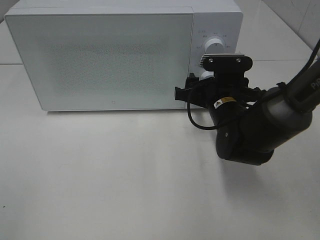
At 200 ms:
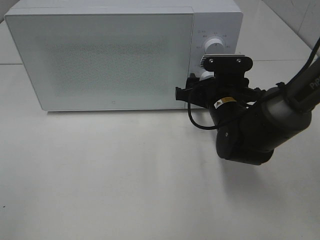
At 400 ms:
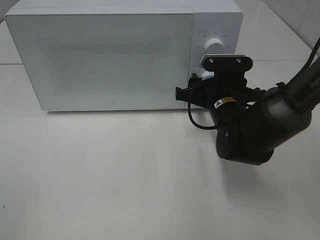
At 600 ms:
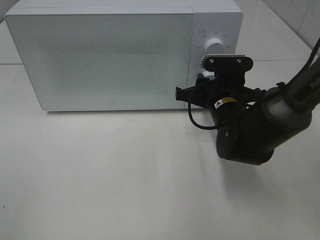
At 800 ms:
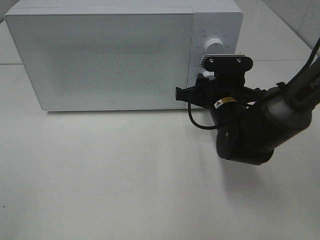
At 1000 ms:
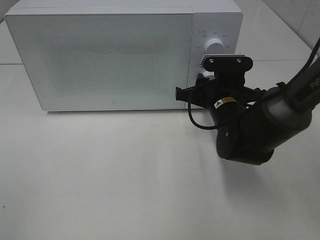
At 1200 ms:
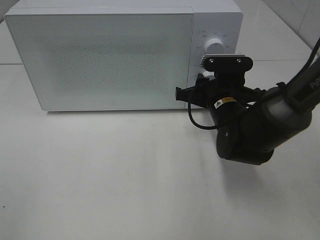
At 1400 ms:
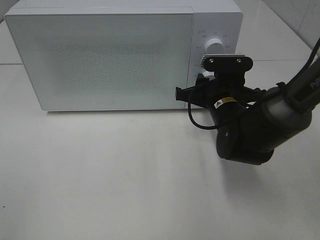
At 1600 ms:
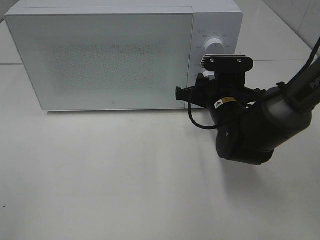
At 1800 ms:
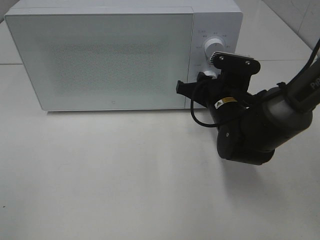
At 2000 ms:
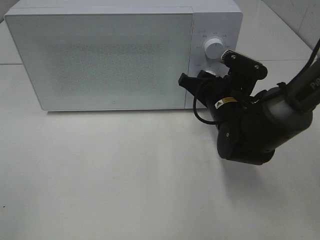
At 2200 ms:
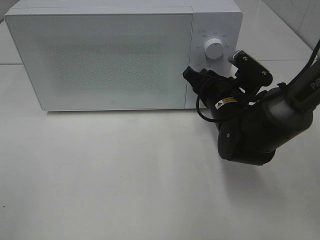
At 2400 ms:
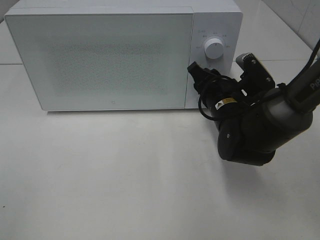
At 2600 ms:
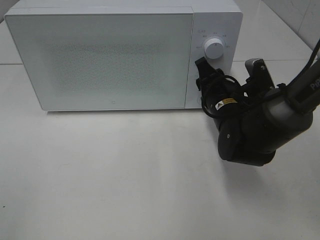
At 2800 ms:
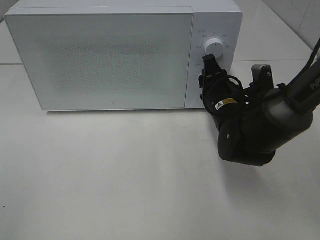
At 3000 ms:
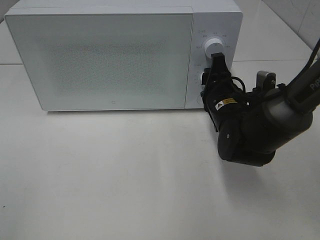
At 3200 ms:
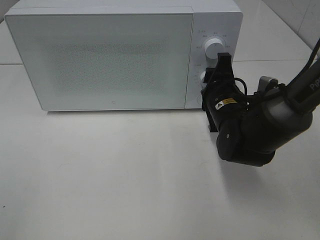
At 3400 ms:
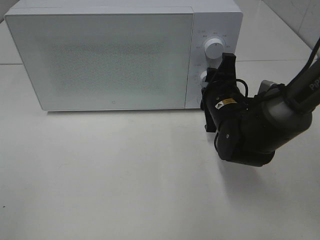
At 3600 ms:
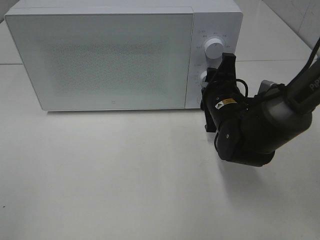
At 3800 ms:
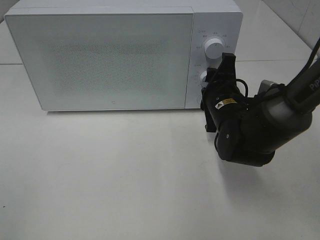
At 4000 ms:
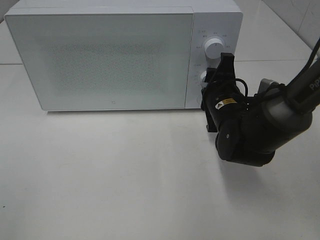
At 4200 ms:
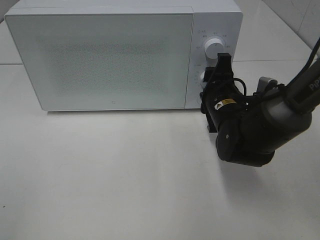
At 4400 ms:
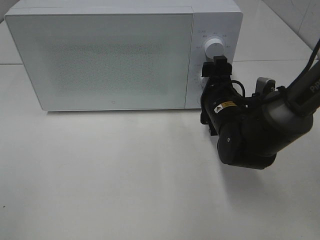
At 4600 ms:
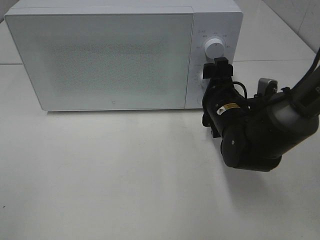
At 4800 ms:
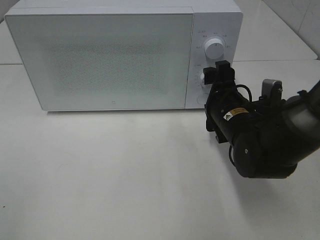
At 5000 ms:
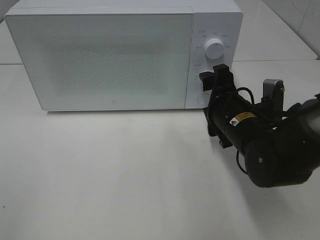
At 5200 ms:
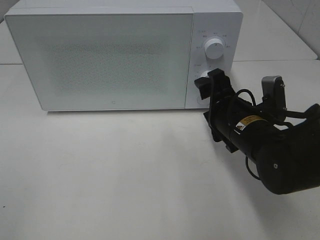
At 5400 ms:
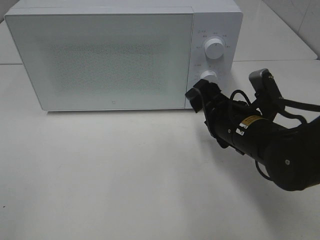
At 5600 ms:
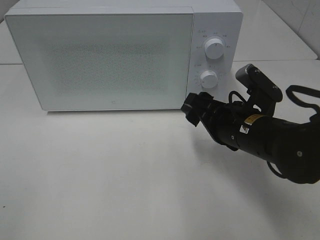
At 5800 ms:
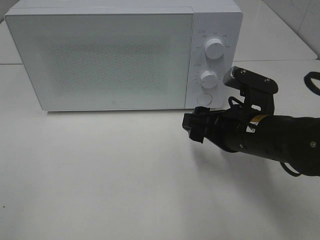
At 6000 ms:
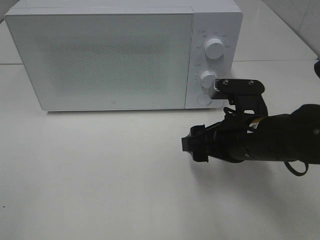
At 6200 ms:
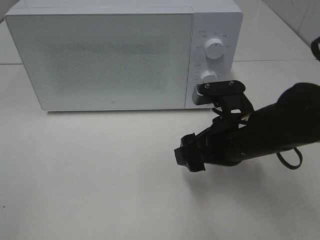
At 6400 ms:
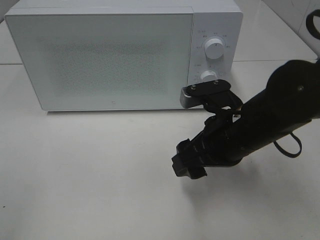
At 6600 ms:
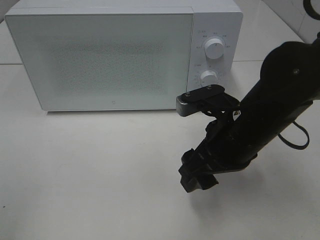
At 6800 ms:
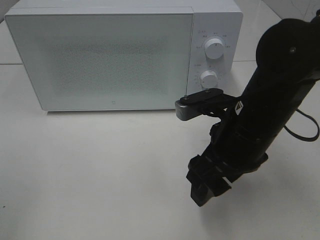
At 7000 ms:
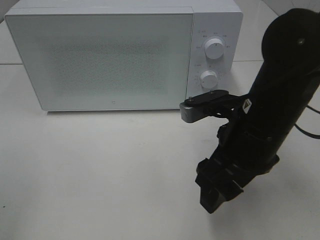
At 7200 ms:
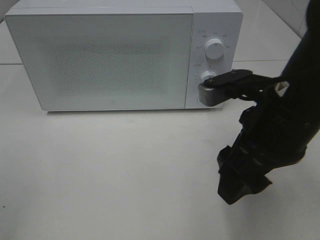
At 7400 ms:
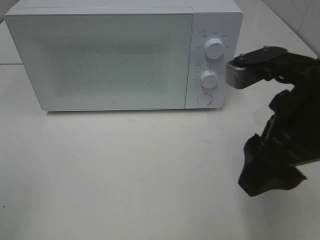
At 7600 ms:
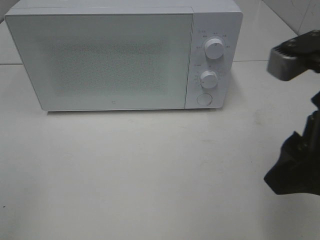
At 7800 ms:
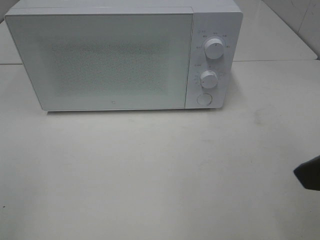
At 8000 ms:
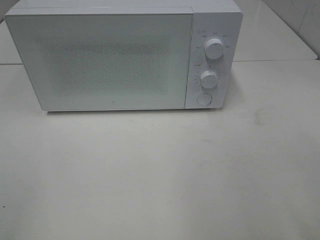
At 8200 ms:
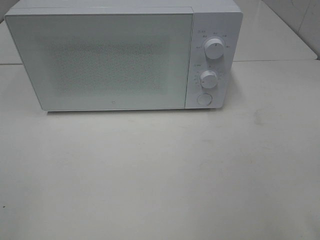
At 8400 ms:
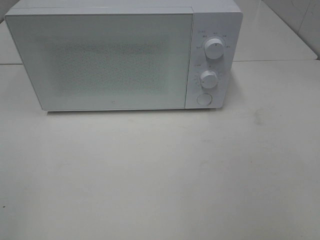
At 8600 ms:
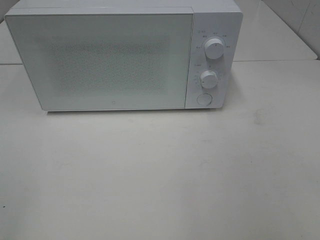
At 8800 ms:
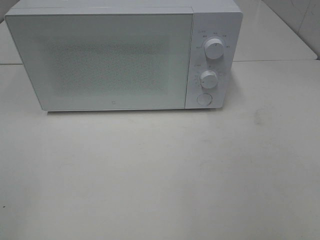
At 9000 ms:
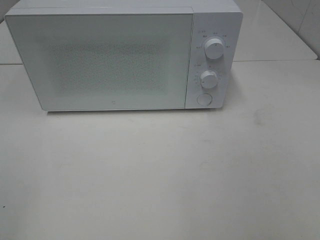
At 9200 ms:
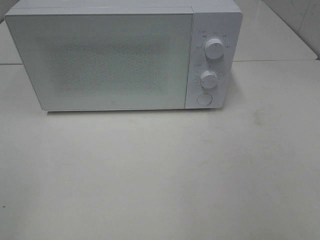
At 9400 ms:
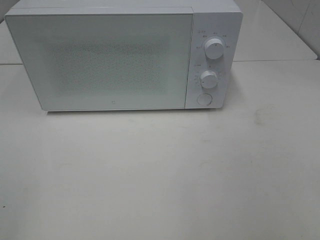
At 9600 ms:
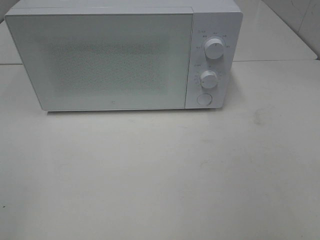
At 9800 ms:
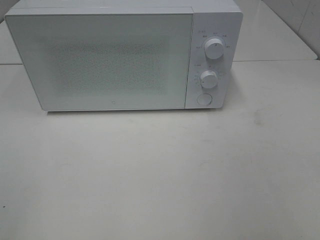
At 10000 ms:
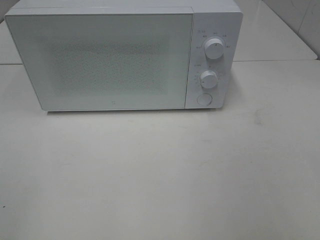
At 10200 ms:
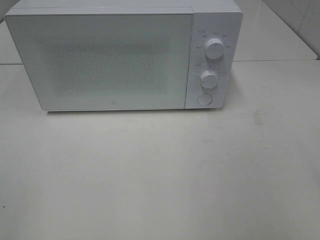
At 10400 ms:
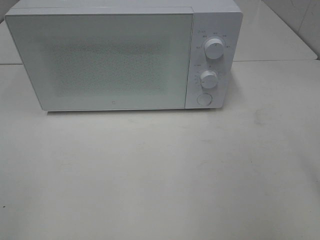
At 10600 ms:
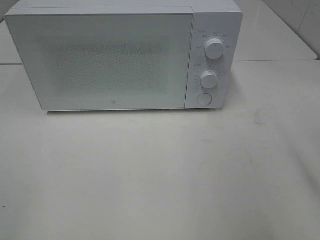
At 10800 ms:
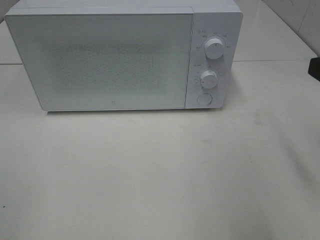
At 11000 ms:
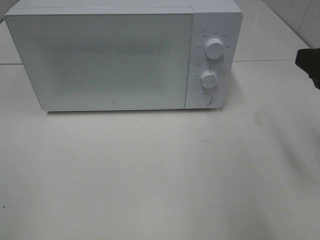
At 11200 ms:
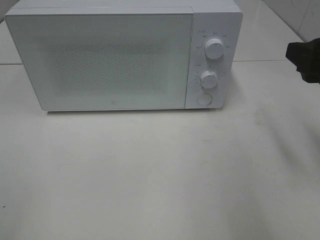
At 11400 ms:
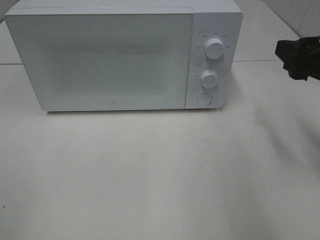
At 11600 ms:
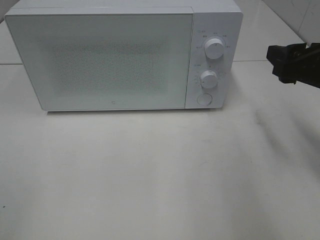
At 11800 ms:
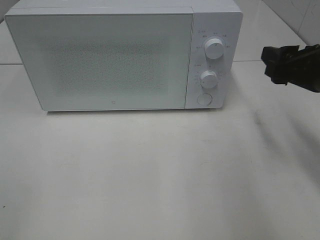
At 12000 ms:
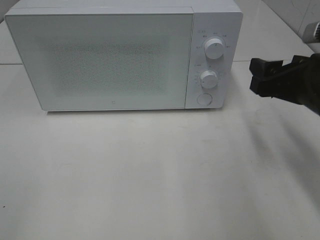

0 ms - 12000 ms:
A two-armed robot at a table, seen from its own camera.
Task of the whole recording: Heat the burger.
Step, 0 ms - 4600 ms: Right hand: twist timer button.
0 ms - 1600 ms: Both grippers stay about where they are.
3000 ms - 4400 ms: The right gripper opens.
4400 ms - 6000 ms: The right gripper travels backward by about 10 cm.
6000 ms - 7600 ms: The right gripper travels upward and backward by roughly 15 cm.
7600 ms - 9000 ms: The right gripper moves backward and to the right, roughly 20 cm.
10400 ms - 12000 ms: The right gripper moves forward and downward, some 15 cm.

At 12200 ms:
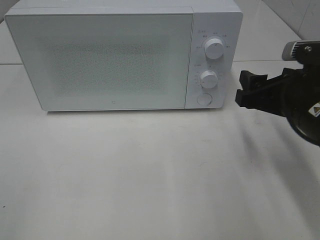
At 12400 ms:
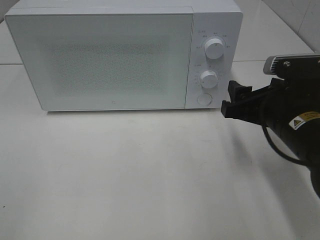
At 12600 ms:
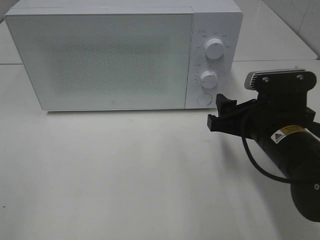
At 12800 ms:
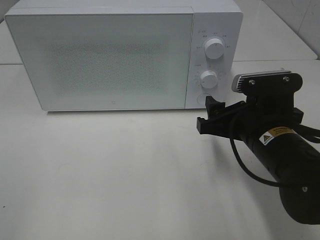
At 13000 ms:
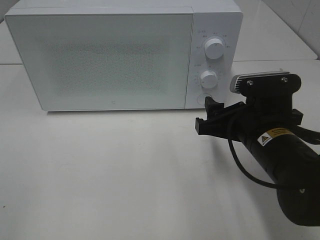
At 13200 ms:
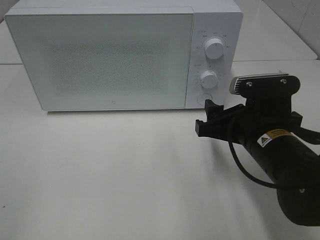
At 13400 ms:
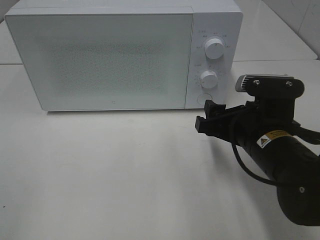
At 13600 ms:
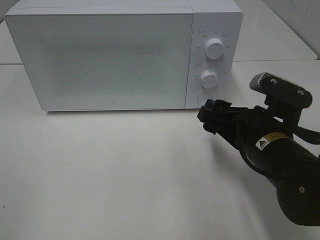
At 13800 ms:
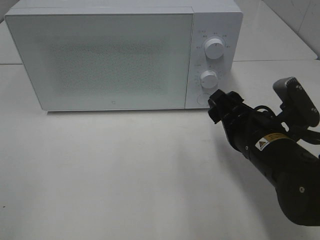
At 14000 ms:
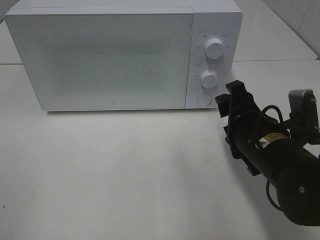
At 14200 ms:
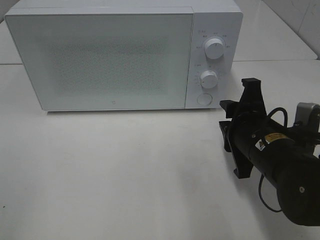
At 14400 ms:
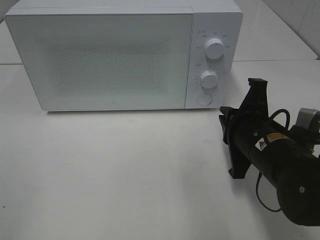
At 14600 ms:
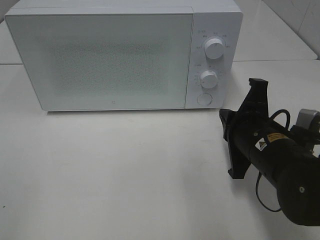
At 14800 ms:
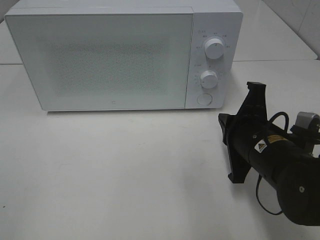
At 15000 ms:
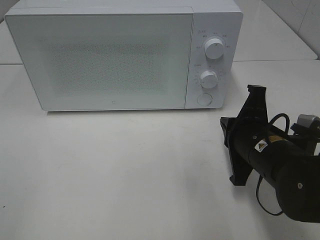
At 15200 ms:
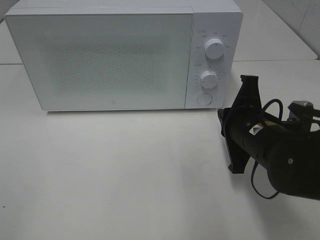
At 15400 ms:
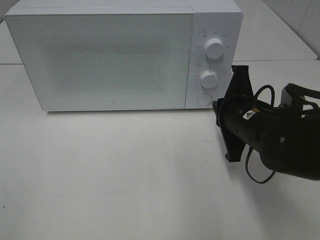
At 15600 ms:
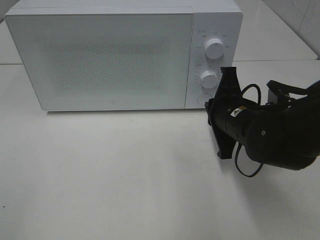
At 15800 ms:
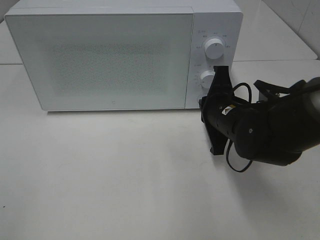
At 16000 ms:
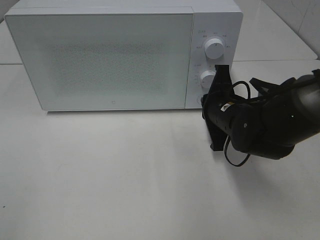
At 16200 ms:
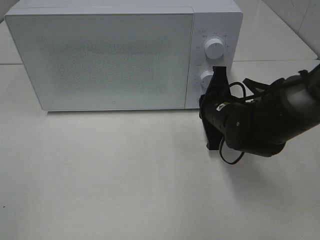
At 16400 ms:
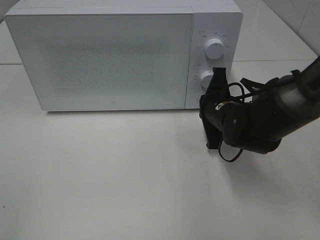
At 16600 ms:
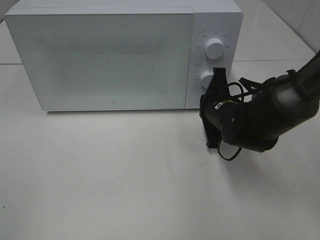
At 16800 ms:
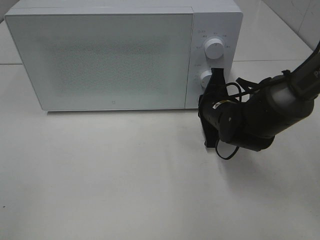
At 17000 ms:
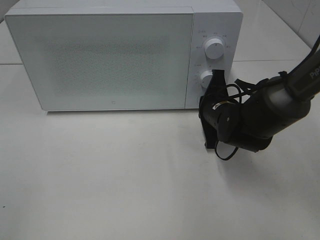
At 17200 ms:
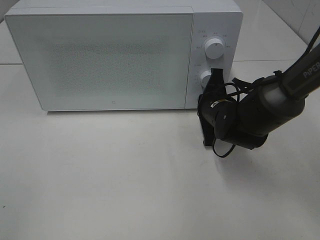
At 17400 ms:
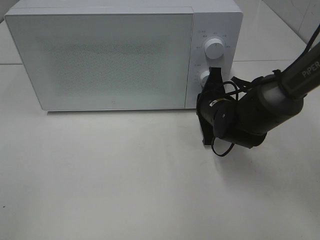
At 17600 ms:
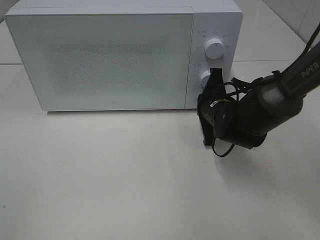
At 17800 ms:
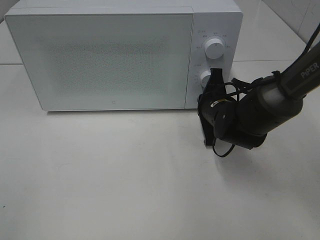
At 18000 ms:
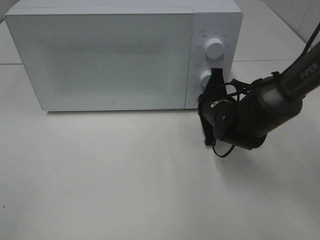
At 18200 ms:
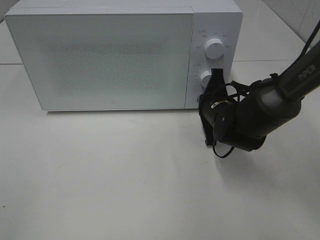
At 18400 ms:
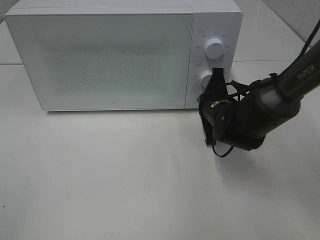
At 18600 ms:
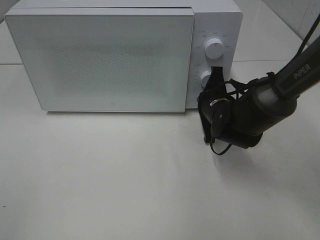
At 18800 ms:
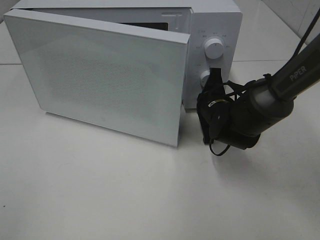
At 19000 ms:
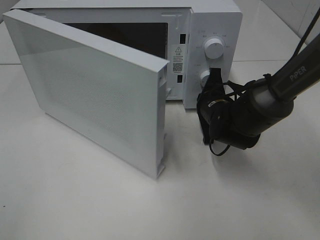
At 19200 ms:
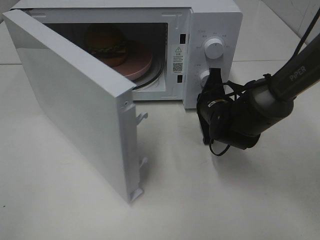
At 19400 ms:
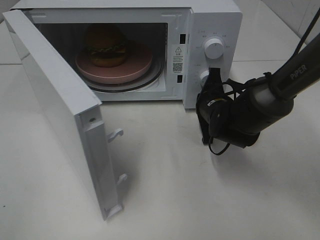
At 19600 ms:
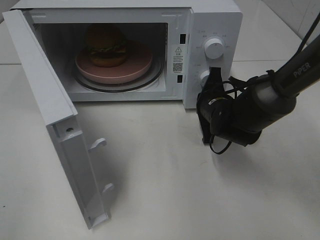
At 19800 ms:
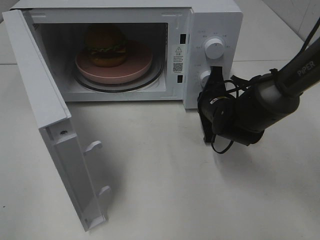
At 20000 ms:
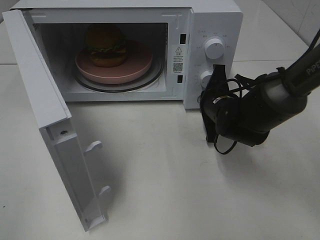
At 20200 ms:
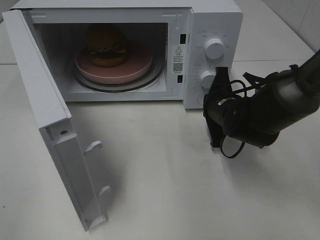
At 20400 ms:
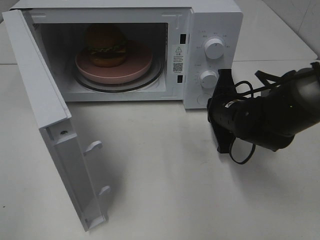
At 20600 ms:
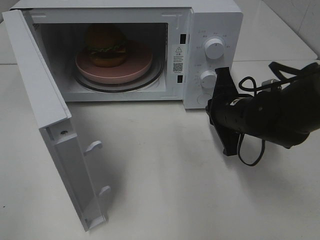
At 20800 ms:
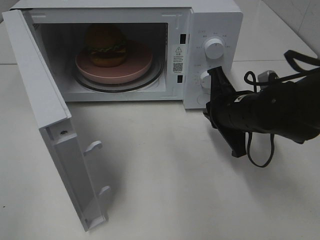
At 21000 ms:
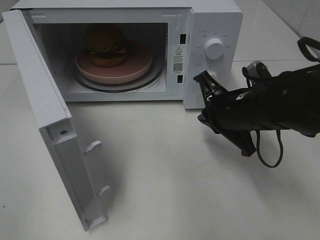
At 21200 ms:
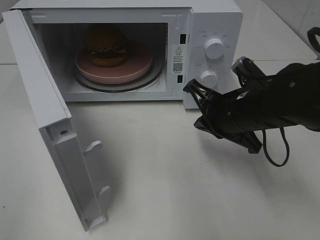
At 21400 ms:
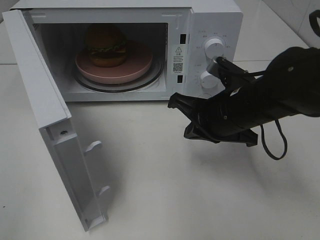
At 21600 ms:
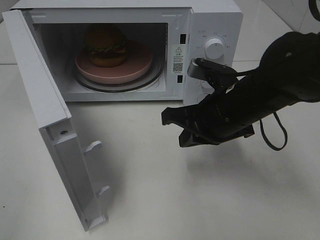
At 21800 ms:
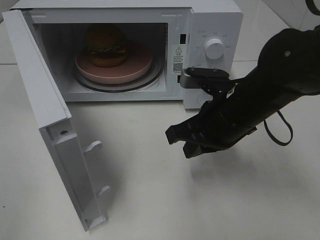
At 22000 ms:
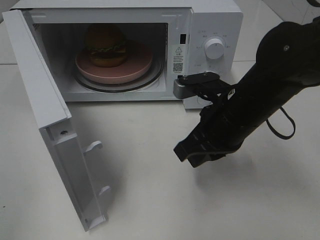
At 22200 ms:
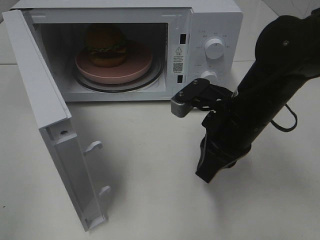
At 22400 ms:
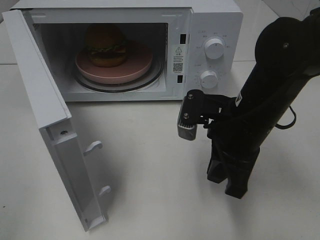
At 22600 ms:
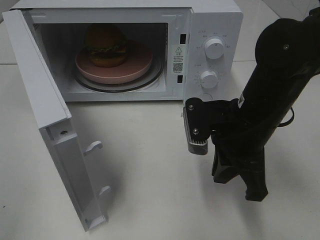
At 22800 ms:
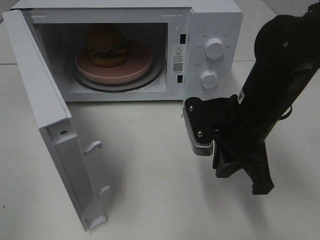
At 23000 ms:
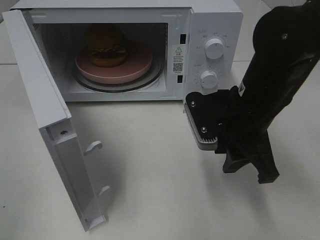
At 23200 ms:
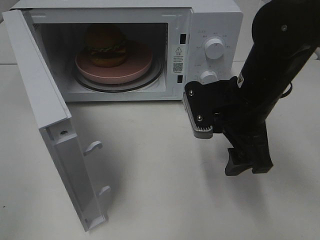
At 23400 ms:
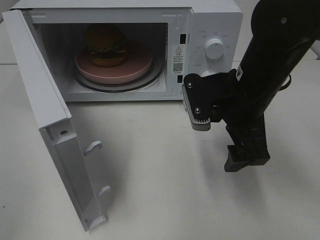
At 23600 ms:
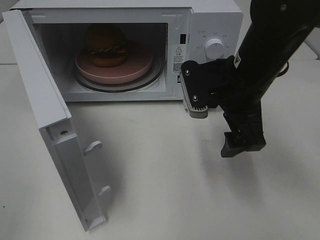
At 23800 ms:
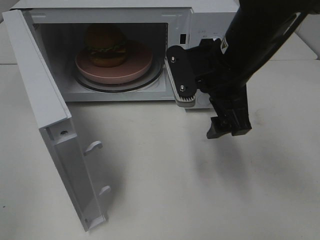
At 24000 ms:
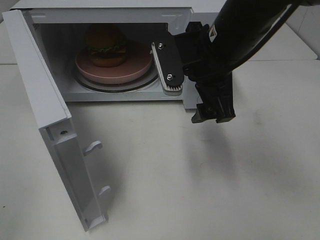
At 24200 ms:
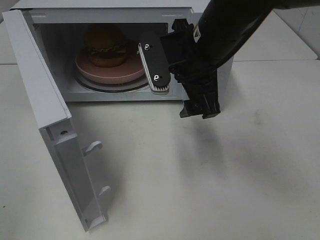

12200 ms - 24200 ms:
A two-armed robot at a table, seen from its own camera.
Task of the whole recording: Heat the burger.
Step, 12200 ms - 20400 ms: Right hand: press the switch.
12200 ms - 13800 ms: The right gripper travels to the left by approximately 5 cm.
13800 ms - 15200 ms: The right gripper closes its fingers.
15200 ms - 16600 ms: The right gripper goes roughly 10 cm forward.
16600 ms - 18200 ms: The grippers make only small movements.
19800 ms - 21200 ms: The right gripper moves backward and upward, roughly 10 cm.
22600 ms - 24200 ms: The right gripper shifts some 10 cm upward, to the left and forward, and opens.
